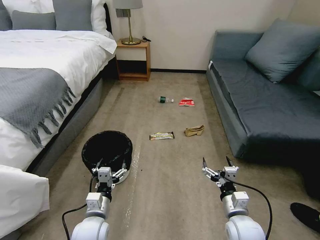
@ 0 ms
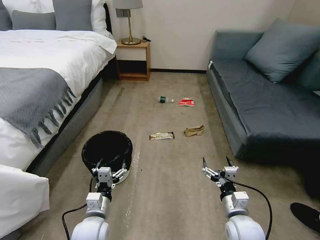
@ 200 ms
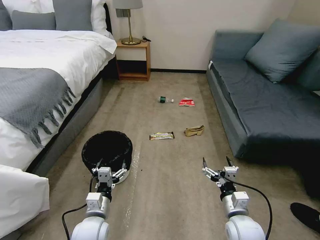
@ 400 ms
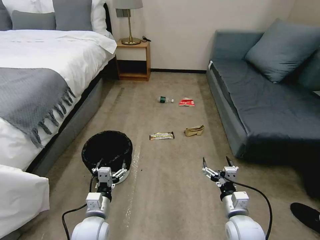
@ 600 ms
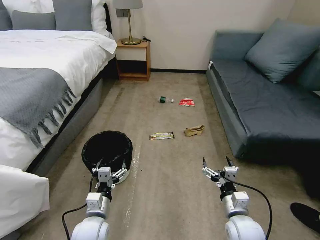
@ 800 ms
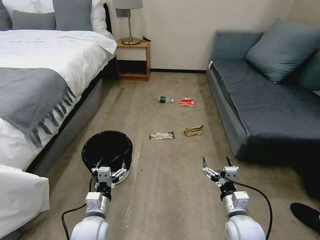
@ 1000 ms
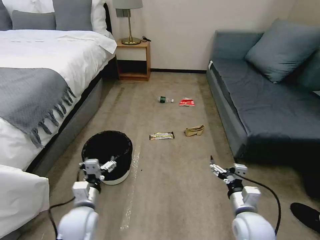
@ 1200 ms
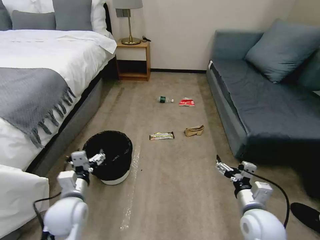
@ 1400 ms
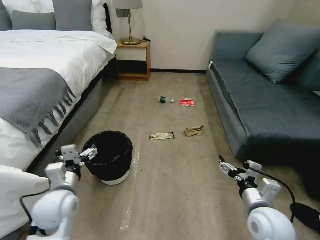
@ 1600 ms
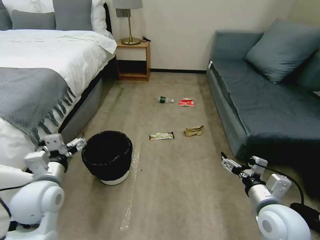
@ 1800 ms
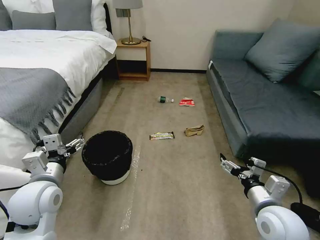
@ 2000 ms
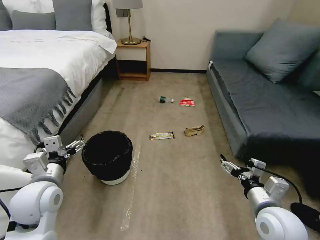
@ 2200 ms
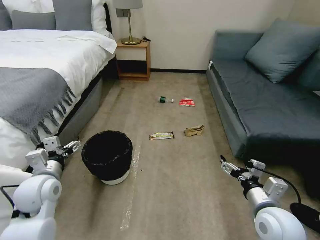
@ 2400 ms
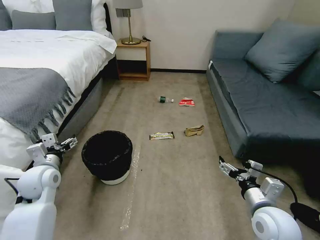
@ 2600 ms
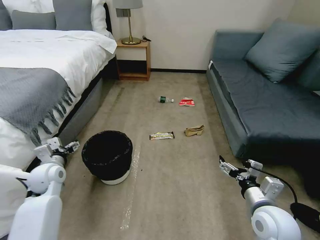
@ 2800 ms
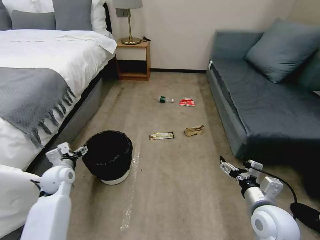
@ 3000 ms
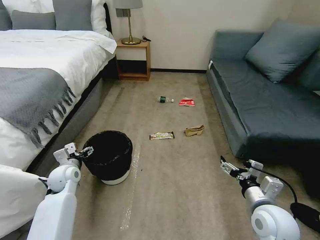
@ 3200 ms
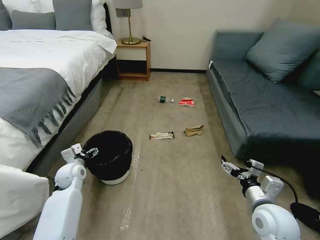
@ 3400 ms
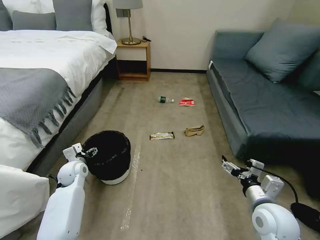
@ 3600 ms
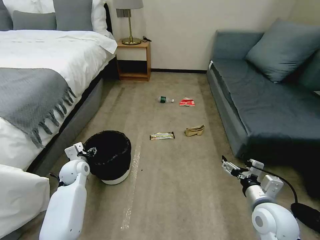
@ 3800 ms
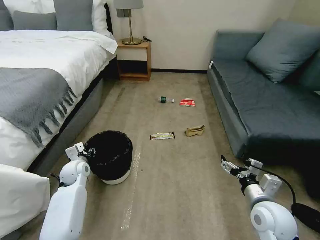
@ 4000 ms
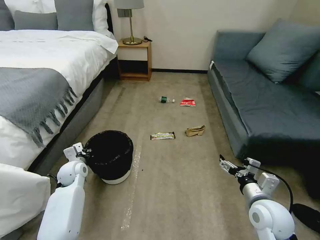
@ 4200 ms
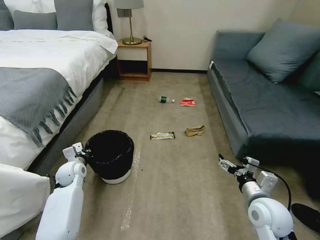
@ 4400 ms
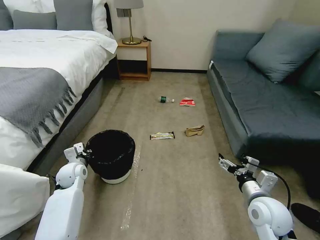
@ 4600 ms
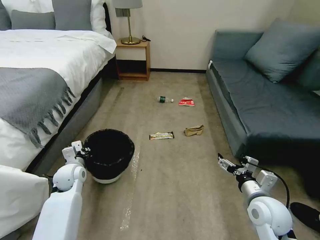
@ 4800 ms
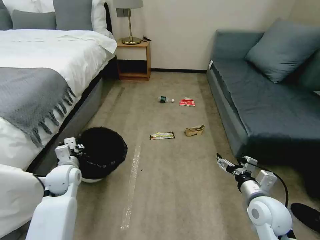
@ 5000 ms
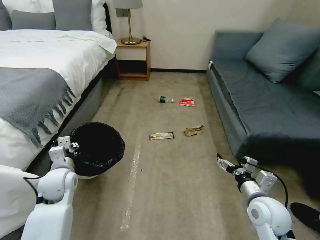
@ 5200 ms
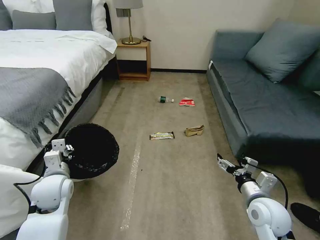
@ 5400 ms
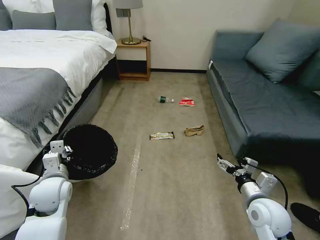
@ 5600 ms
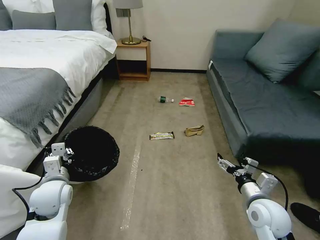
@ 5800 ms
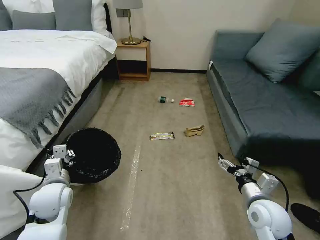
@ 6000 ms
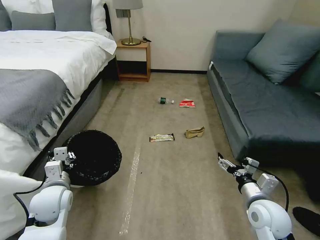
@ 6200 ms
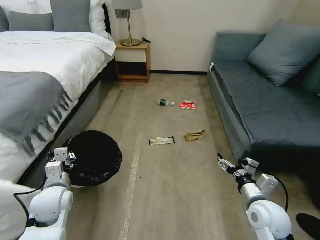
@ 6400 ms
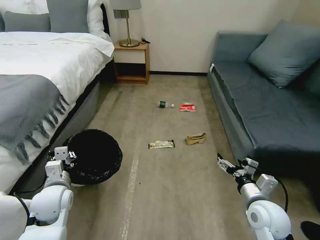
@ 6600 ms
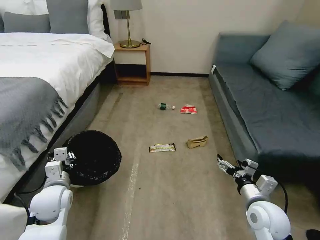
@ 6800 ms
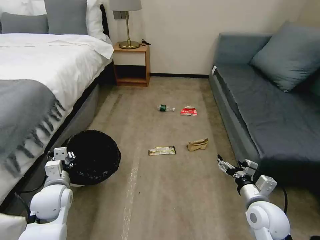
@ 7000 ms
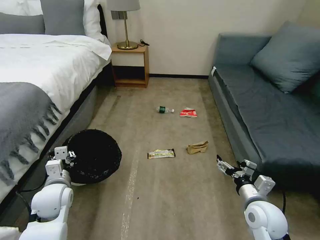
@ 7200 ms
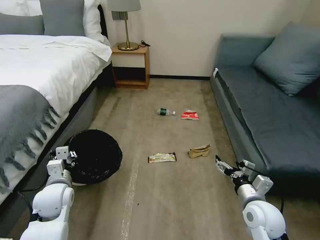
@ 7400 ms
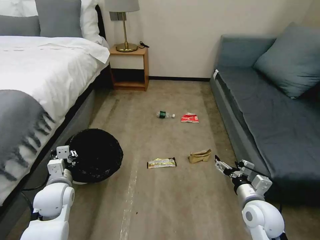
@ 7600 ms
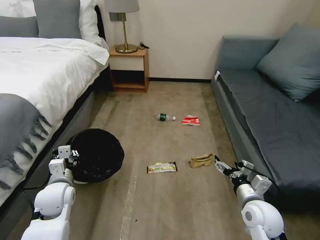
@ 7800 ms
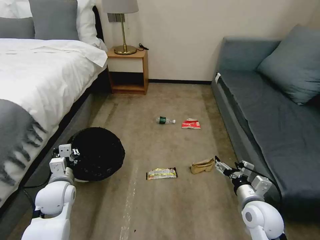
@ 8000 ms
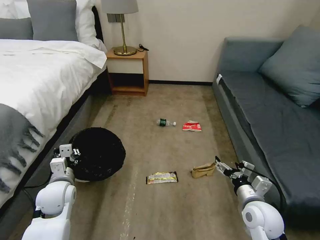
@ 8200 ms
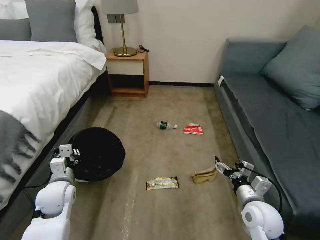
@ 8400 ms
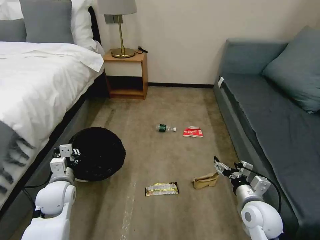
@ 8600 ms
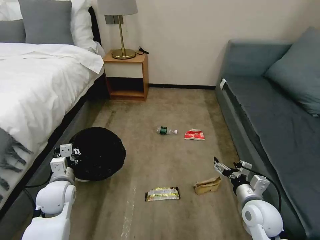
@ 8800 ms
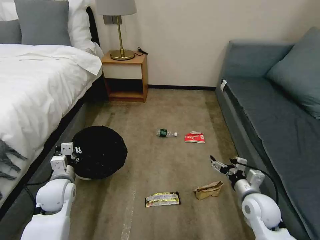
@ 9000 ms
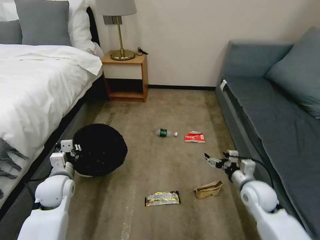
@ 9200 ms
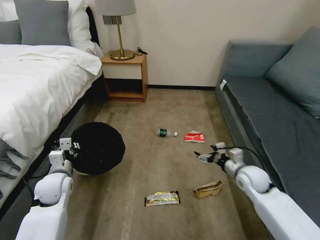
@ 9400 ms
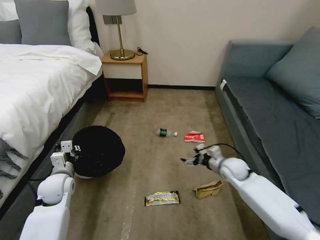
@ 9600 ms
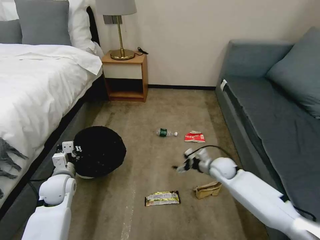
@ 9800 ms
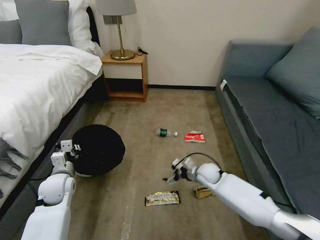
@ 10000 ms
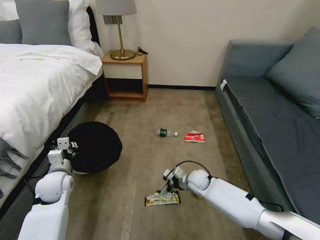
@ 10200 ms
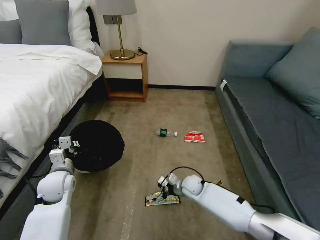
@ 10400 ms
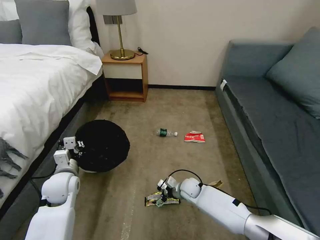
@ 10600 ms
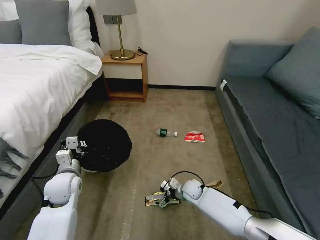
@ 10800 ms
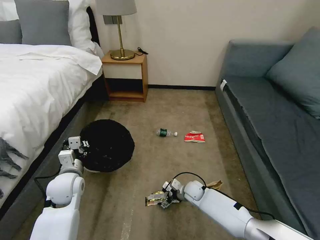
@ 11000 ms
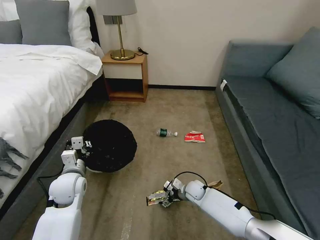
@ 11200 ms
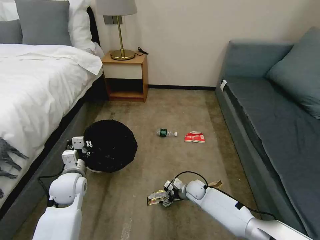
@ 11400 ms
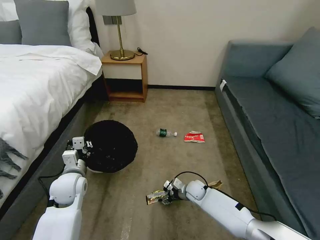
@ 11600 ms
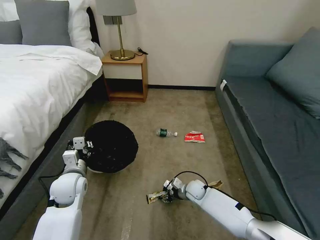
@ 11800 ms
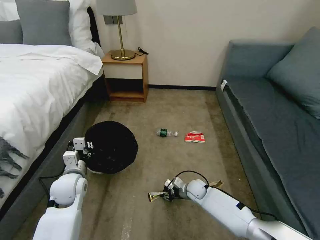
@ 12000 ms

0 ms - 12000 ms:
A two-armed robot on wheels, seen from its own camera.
Task of the whole recording: Pick up the trash bin, then pick up the garbage on the floor and place it into the trash bin.
1600 ms - 3000 ms: The left gripper moves forward, to the left and downward, approximately 15 cm.
3000 ms - 4400 ms: The left gripper ends up some 5 cm from where it was, and closes.
4400 ms - 6000 ms: The left gripper moves backward and upward, approximately 15 cm.
9000 ms - 10400 ms: The right gripper travels to the left, downward and forward by about 25 cm.
10400 ms - 12000 ms: The right gripper closes.

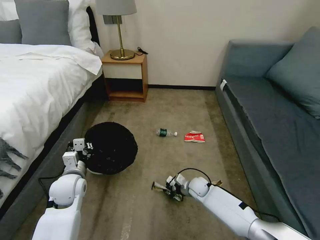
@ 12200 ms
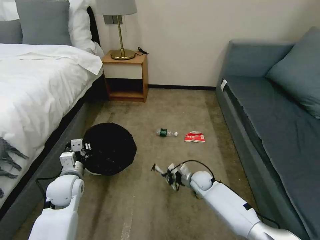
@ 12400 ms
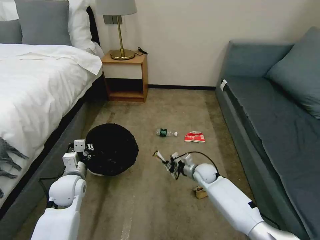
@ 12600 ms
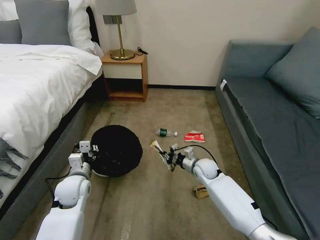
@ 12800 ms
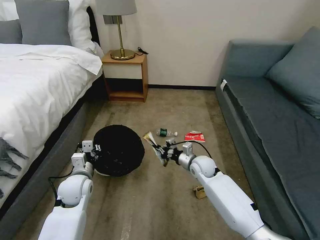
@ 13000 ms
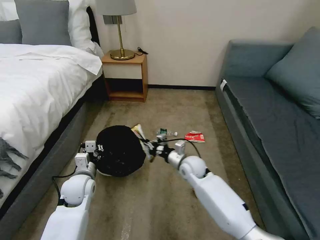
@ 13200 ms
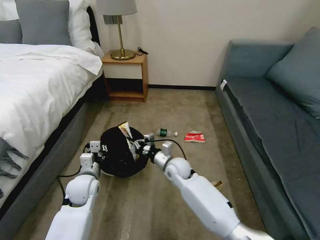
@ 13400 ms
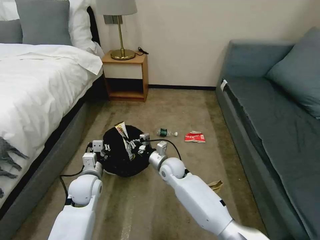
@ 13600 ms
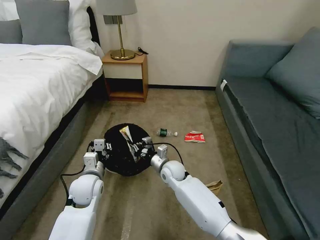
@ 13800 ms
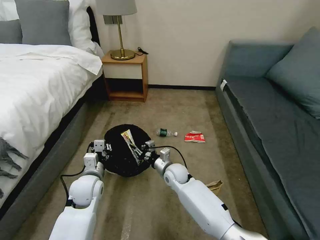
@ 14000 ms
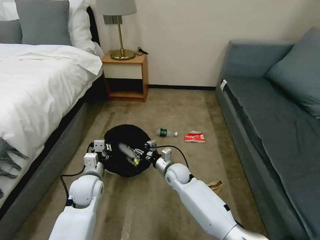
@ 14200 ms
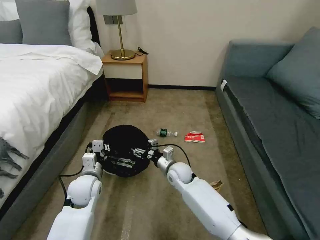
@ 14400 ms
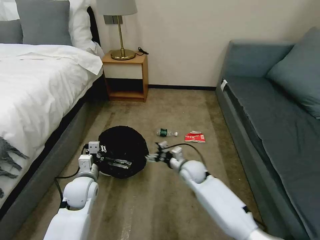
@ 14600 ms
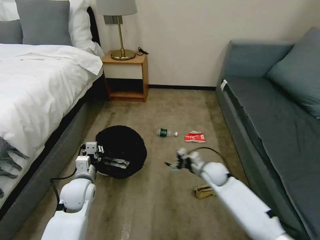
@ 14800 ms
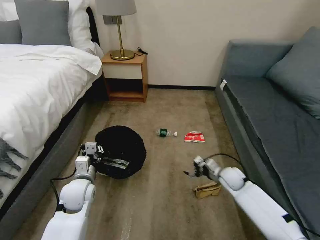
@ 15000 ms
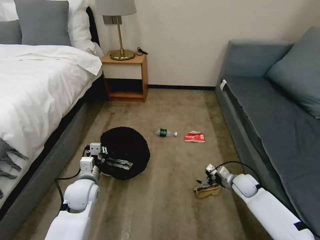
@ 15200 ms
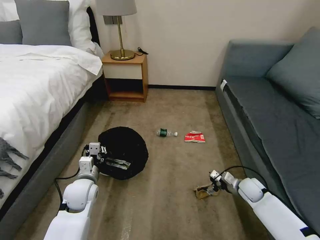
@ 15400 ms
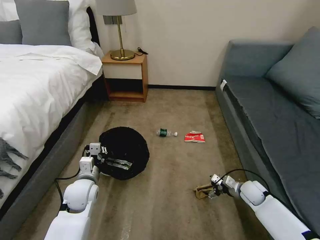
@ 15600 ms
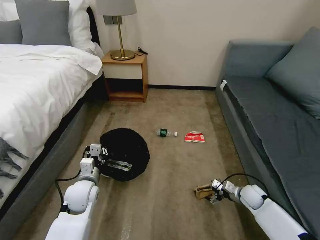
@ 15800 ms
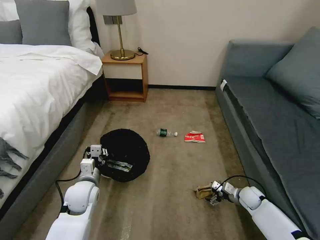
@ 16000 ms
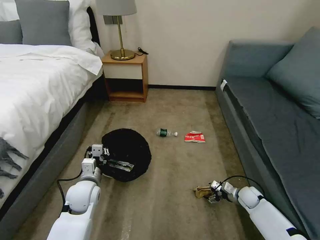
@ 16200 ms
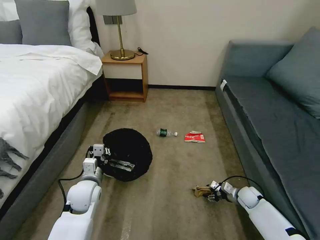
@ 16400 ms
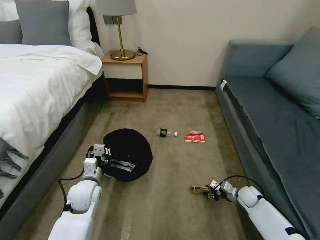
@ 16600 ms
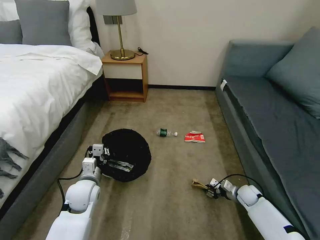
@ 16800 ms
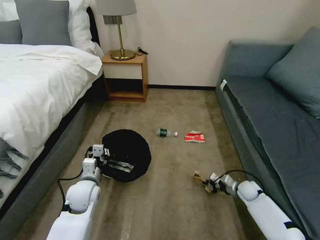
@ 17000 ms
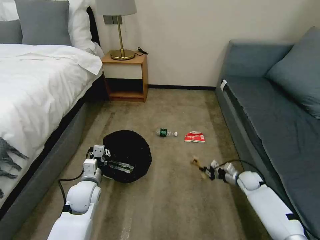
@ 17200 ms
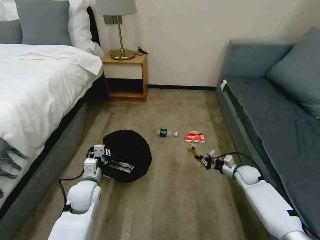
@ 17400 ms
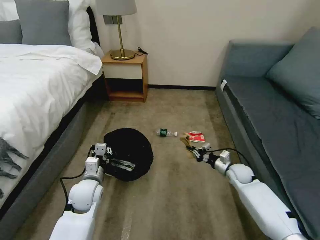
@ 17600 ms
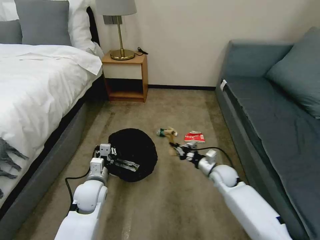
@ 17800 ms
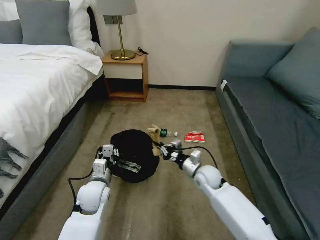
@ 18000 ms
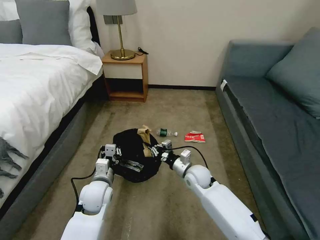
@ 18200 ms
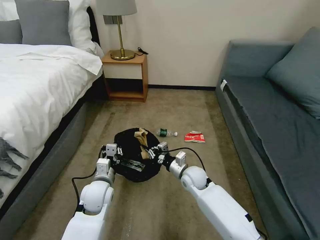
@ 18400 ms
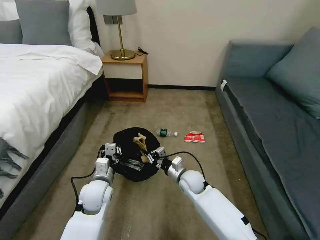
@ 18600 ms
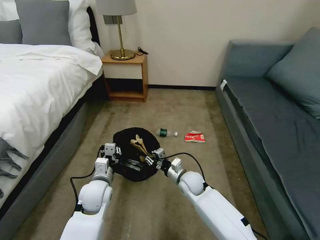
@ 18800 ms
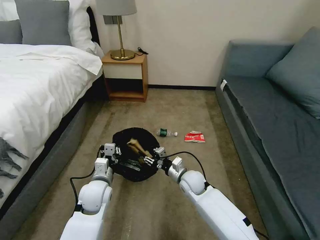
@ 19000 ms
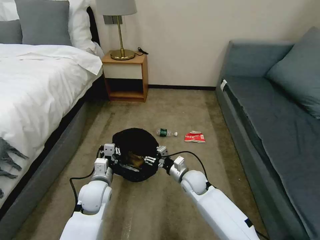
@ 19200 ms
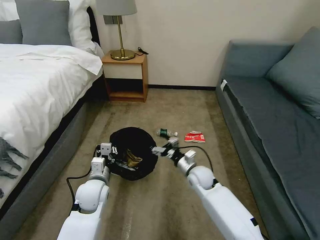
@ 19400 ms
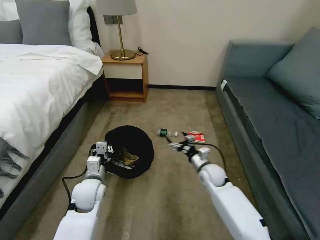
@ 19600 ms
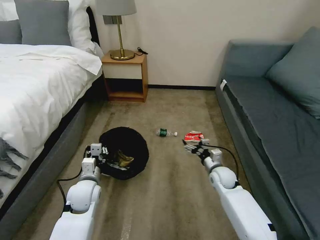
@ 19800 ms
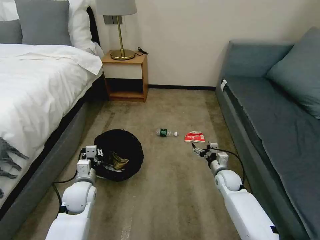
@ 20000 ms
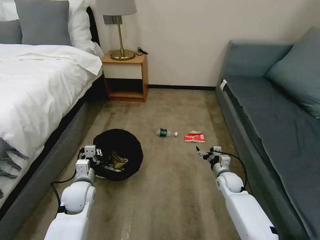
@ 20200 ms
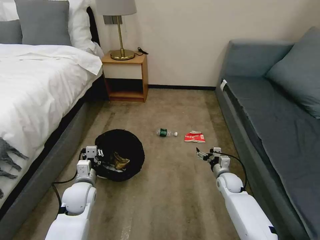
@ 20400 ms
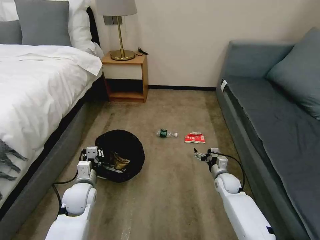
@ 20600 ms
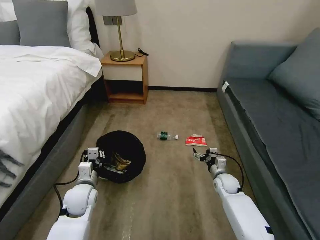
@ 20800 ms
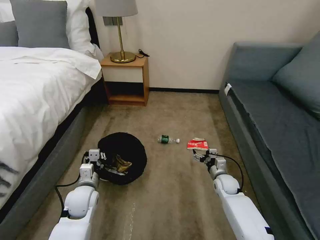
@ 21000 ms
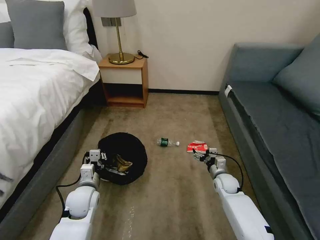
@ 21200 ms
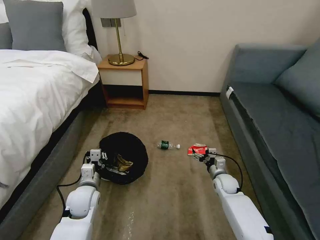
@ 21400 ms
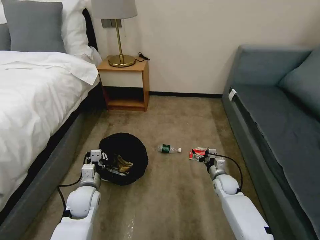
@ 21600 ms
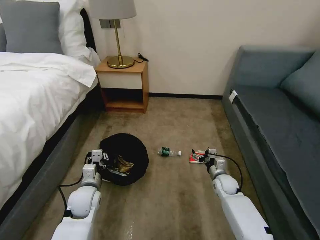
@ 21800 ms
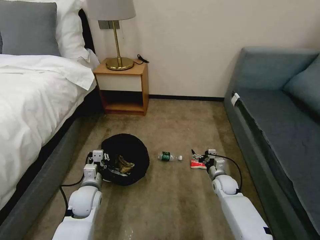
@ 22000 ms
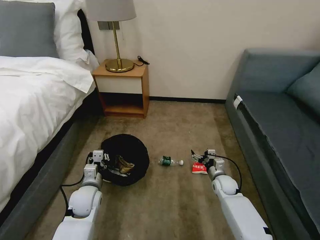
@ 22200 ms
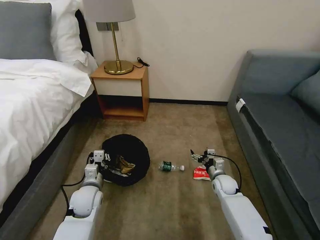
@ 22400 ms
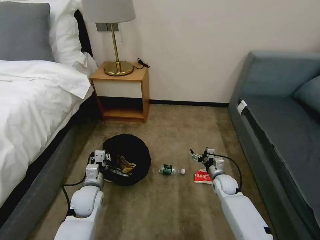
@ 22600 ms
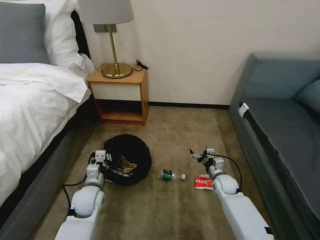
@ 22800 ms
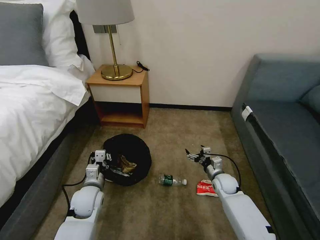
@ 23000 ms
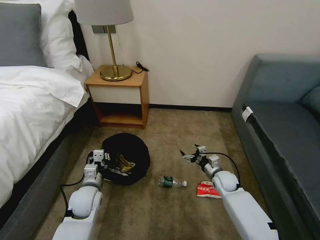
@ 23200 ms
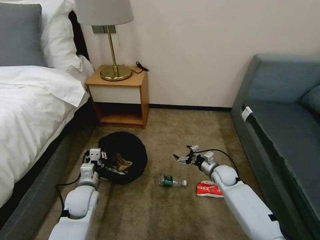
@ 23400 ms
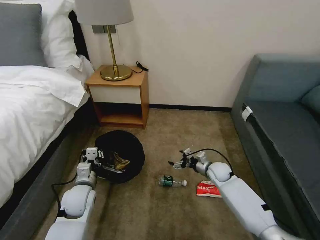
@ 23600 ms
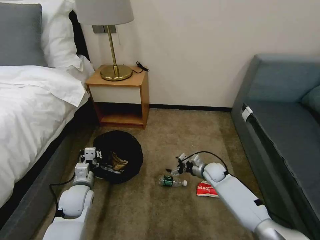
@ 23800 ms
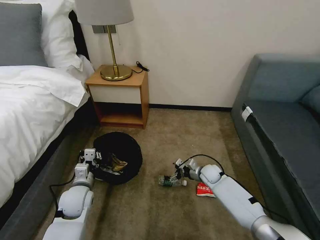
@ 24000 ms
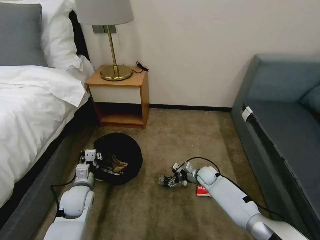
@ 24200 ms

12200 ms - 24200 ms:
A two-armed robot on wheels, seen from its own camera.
Task of the whole recording: Pick up the trash bin, then pick up the garbage on the floor and place it into the trash bin.
12200 ms - 13800 ms: The left gripper travels to the right by approximately 5 cm. The right gripper moves to the left and upward, some 15 cm.
13800 ms - 15200 ms: The right gripper goes roughly 30 cm to the right, and opens its fingers.
15200 ms - 16600 ms: The right gripper goes some 5 cm downward, and closes its fingers.
16600 ms - 18200 ms: The right gripper is displaced to the left and upward by roughly 30 cm, and closes up.
18200 ms - 19800 ms: The right gripper travels to the right by some 10 cm, and opens its fingers.
19800 ms - 21200 ms: The right gripper is displaced downward by approximately 5 cm.
22600 ms - 24200 ms: The right gripper heads to the left and forward, covering roughly 10 cm.
